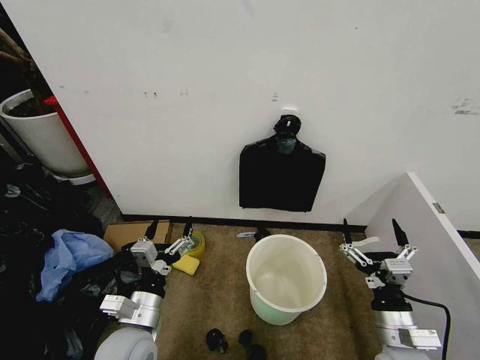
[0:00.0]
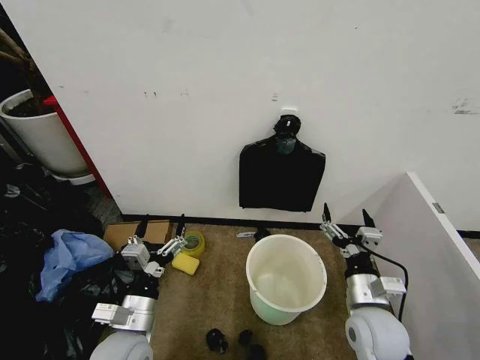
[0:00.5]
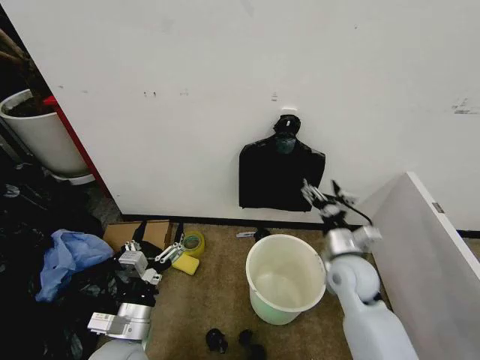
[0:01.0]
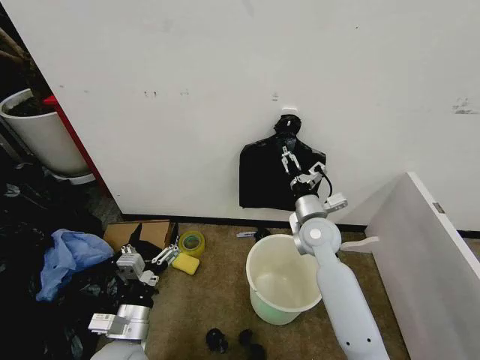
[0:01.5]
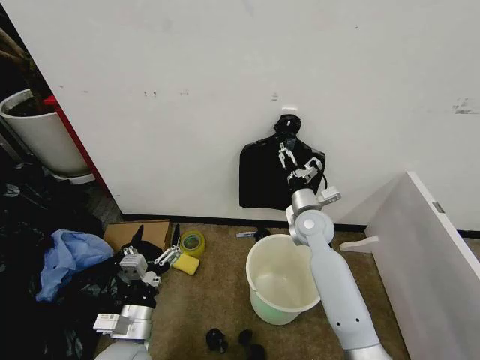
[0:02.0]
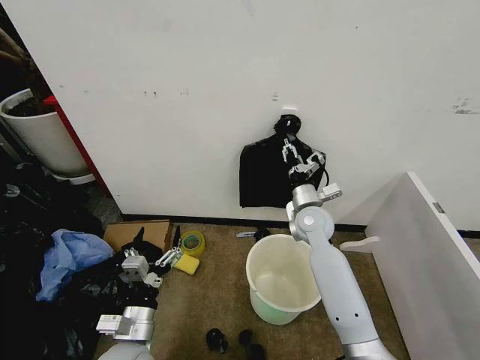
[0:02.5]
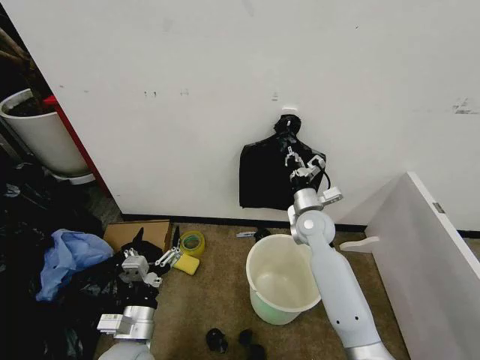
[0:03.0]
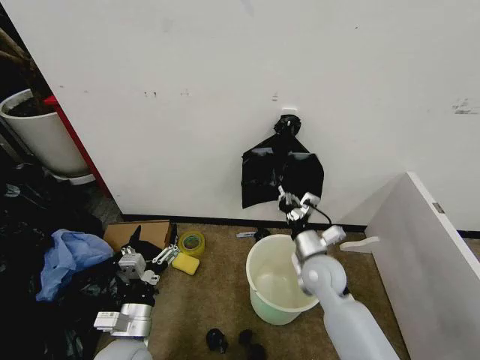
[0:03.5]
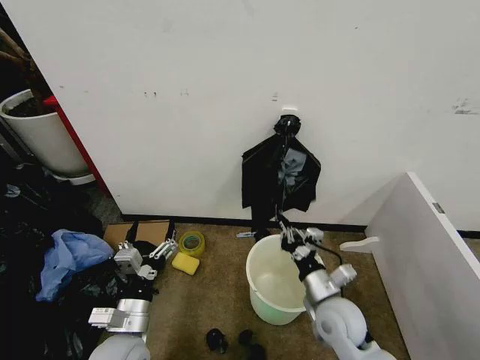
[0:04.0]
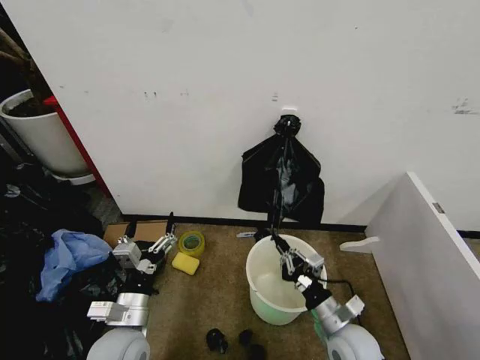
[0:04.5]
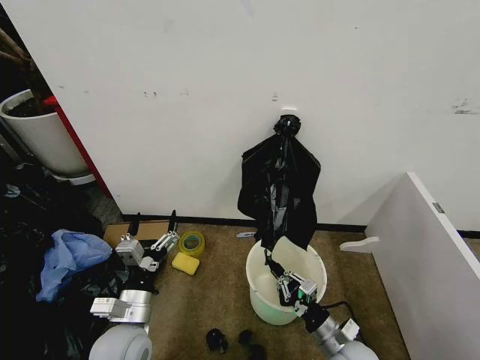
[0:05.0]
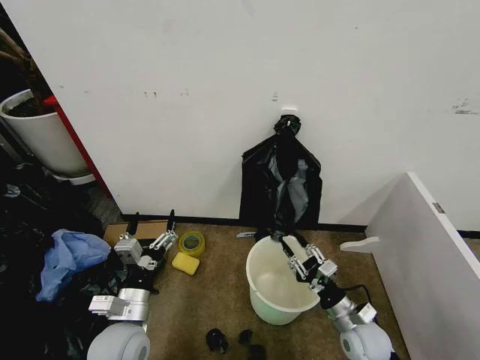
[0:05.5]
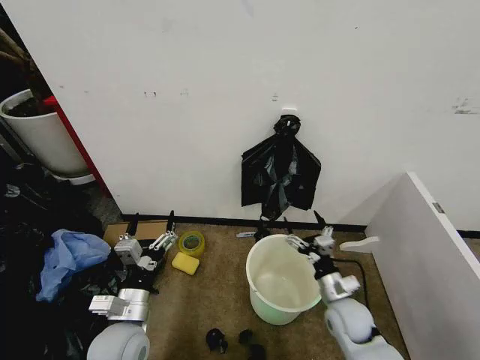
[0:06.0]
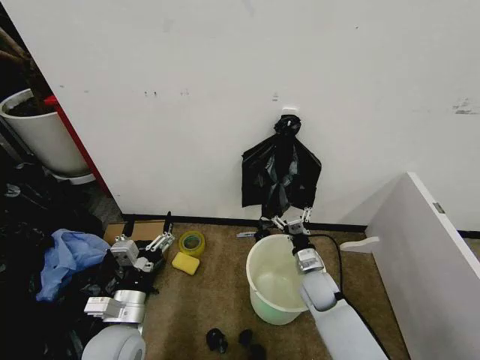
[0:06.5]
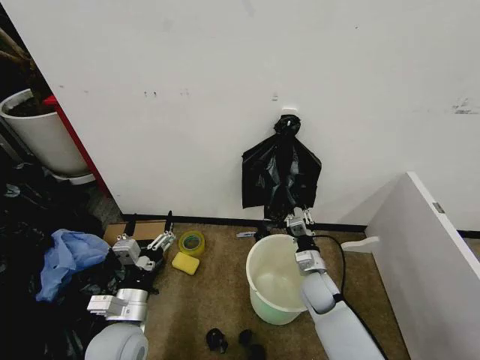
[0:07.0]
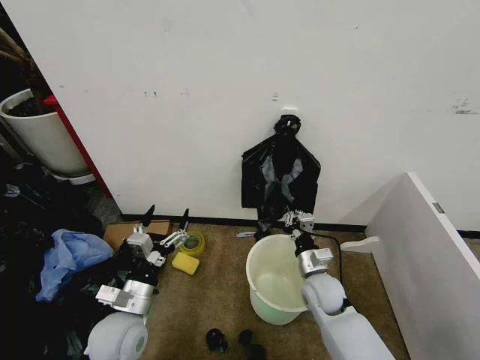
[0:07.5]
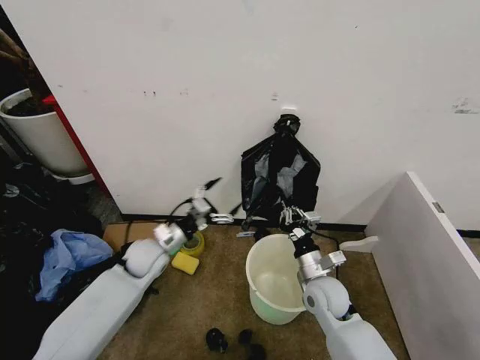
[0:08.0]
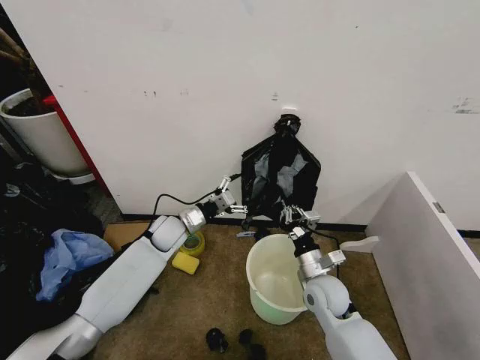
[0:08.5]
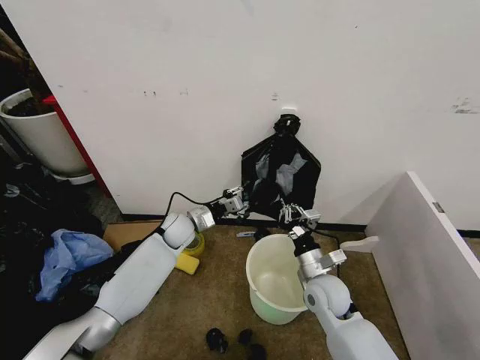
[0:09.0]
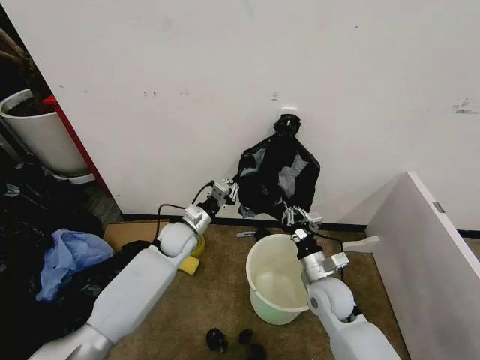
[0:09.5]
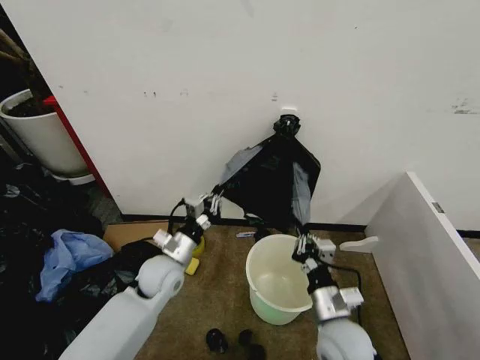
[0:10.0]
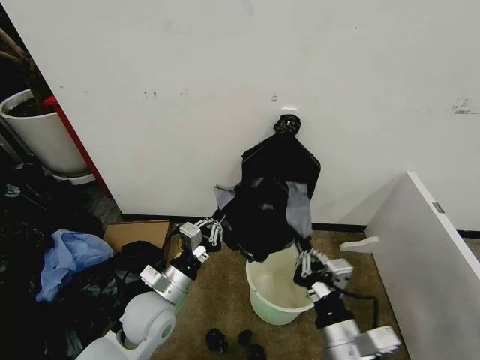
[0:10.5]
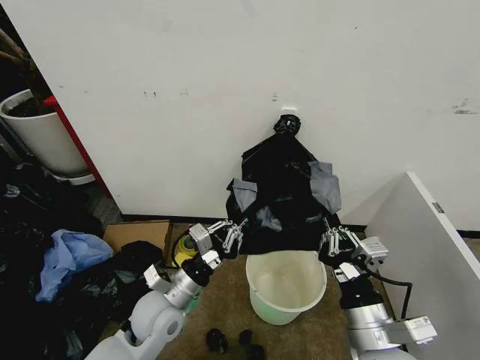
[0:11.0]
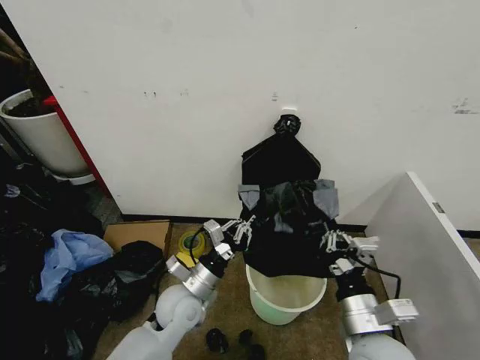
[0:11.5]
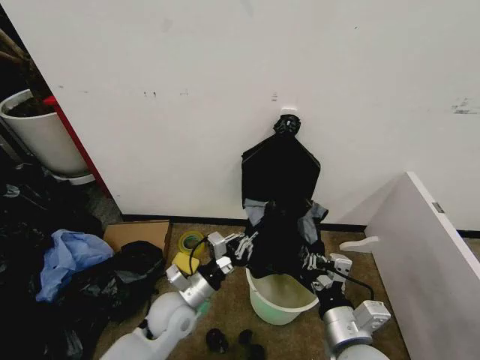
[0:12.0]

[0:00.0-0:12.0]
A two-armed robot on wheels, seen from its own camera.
Task of the whole recording: Place the garbage bag over the trash bin.
0:02.0 to 0:04.0: The right gripper is displaced backward by about 15 cm, and closes up.
0:04.0 to 0:06.0: The right gripper heads downward and to the right, covering roughly 10 cm, and opens up.
0:06.0 to 0:08.0: The right gripper goes approximately 5 cm to the left, and closes its fingers. Meanwhile the left gripper travels forward by some 20 cm.
0:08.0 to 0:10.0: The left gripper shifts some 5 cm to the right, moves about 10 cm forward and comes back, and closes; the right gripper heads backward, covering approximately 10 cm.
0:10.0 to 0:12.0: The right gripper travels upward and backward by approximately 10 cm. Meanwhile the left gripper shifts about 10 cm backward.

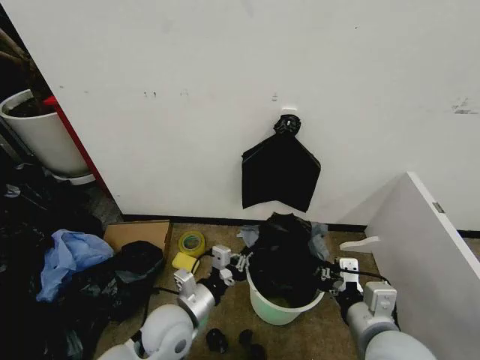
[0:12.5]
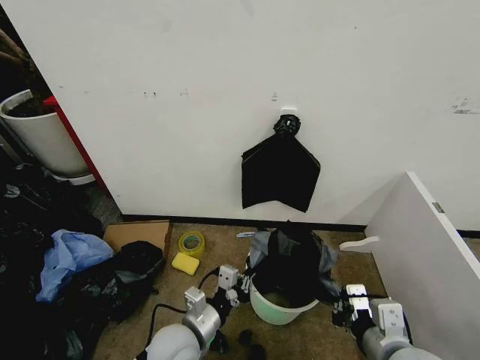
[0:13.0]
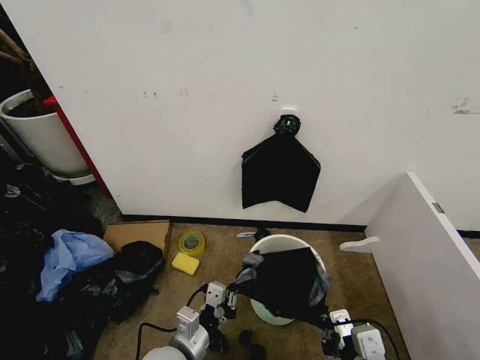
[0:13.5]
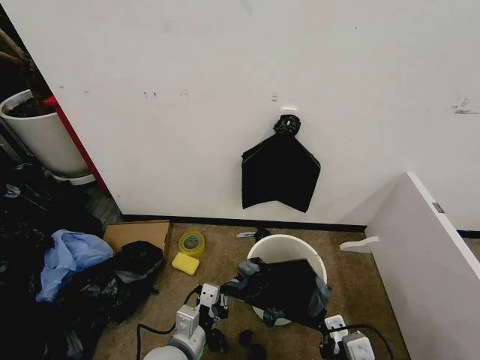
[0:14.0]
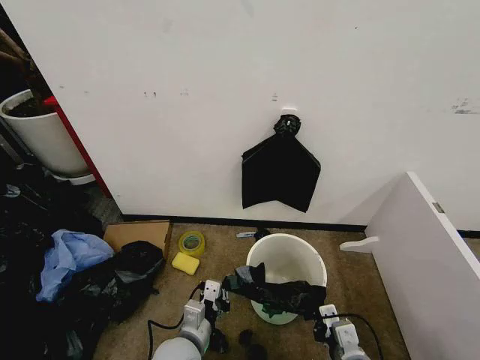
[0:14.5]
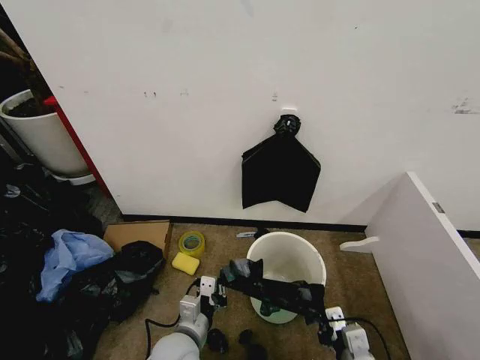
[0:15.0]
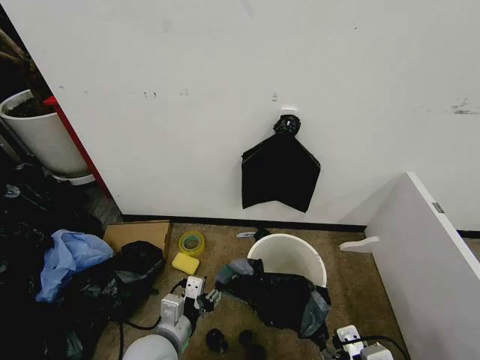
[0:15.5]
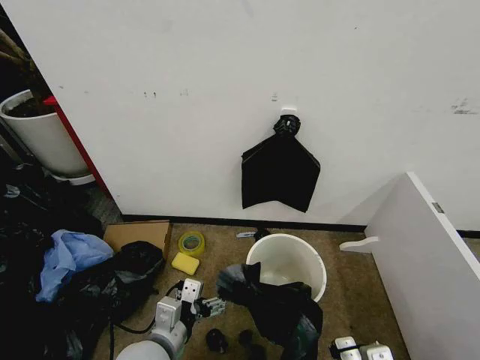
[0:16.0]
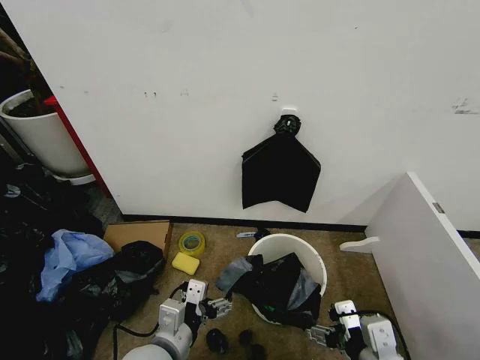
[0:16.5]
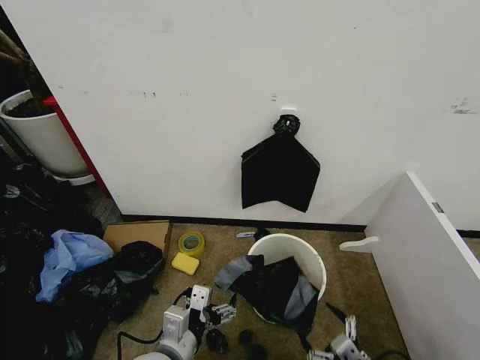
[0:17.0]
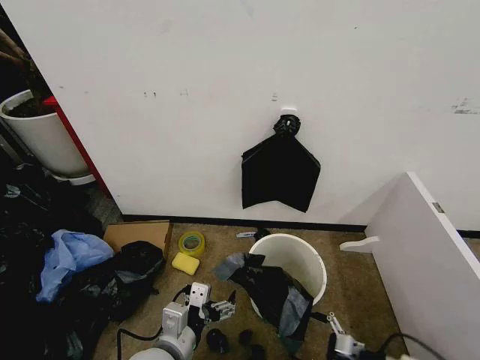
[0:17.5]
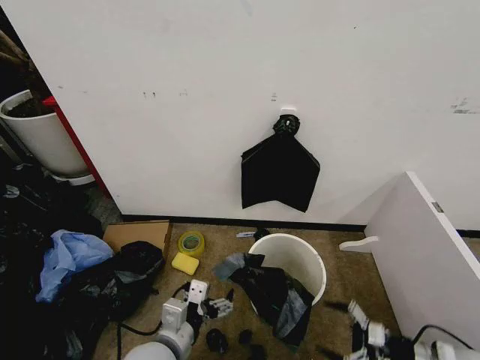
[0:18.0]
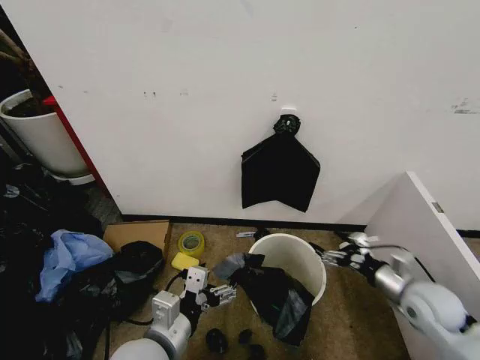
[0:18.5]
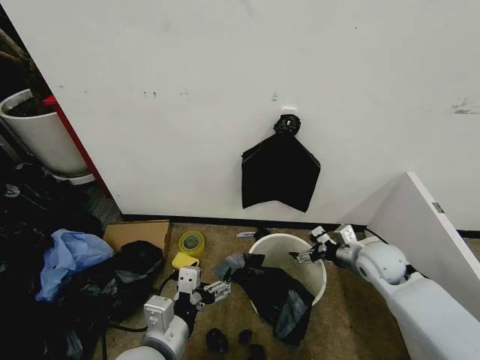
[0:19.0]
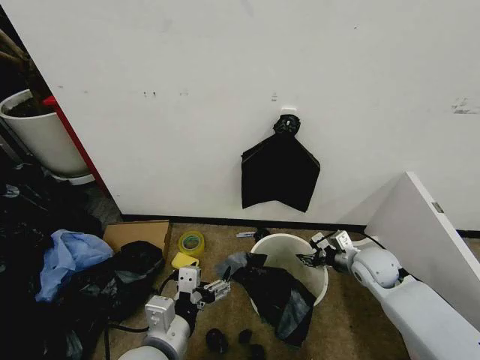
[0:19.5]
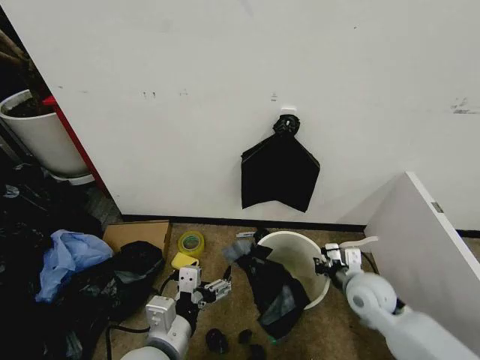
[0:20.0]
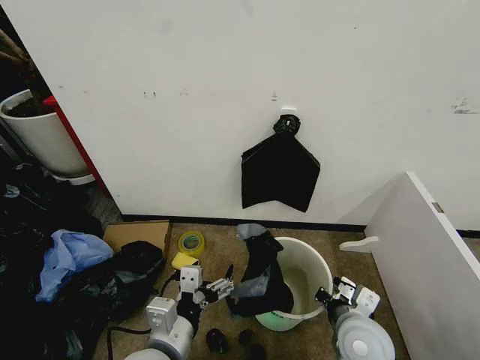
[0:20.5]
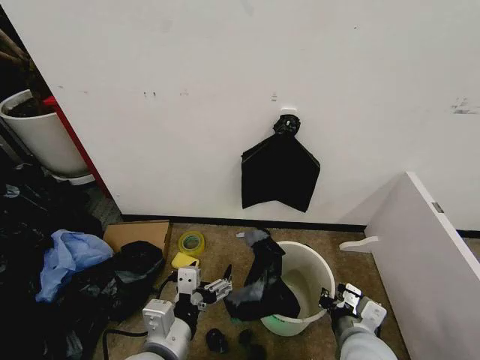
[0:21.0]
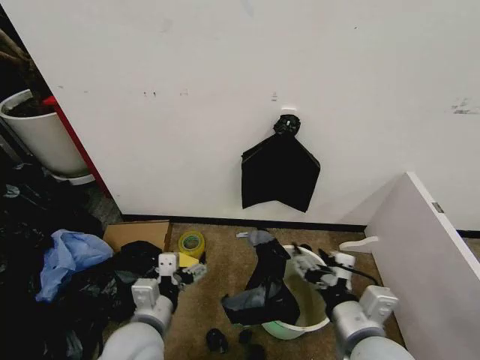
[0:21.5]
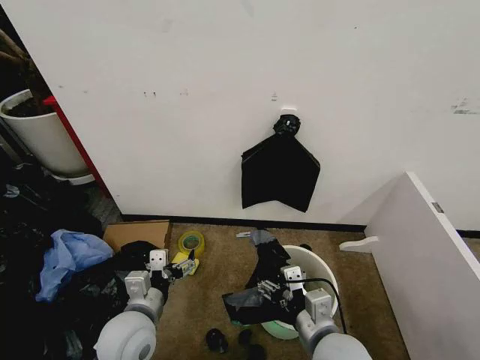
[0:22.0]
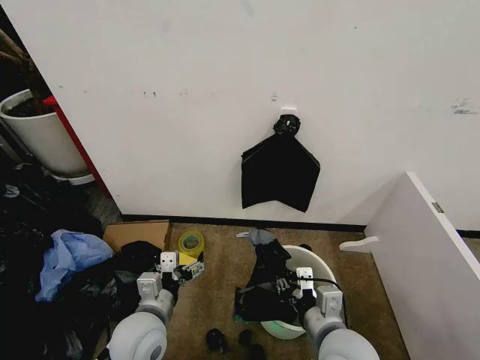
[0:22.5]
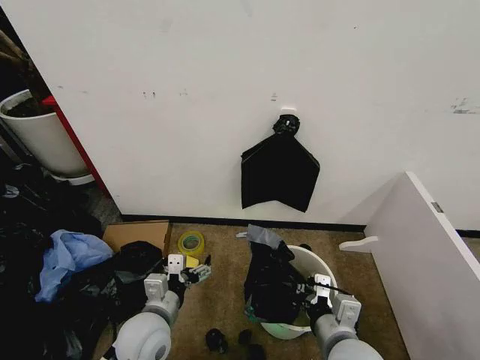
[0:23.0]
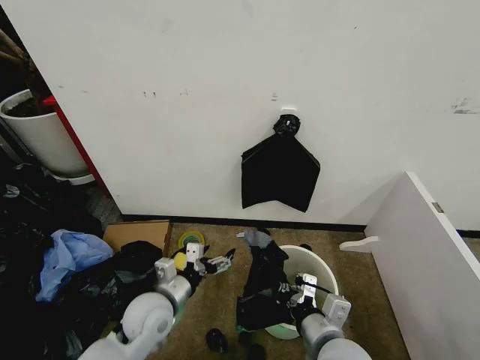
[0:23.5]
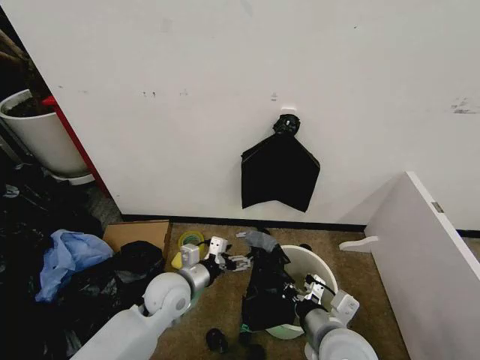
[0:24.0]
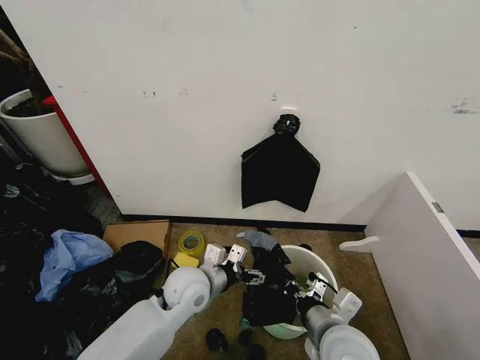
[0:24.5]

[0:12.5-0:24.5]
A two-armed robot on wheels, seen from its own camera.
Task of the whole recording: Place the garbage bag over the trash bin.
0:12.5 to 0:14.5: The left gripper shifts roughly 5 cm downward; the right gripper moves downward, some 10 cm.
0:14.5 to 0:16.5: Both grippers travel together upward, about 10 cm. The left gripper opens up, while the right gripper opens up.
0:16.5 to 0:18.5: The right gripper moves forward, to the right and downward, approximately 25 cm.
0:18.5 to 0:20.5: The right gripper shifts approximately 15 cm to the left and backward, and closes its fingers.
0:20.5 to 0:22.5: The right gripper moves to the left, roughly 5 cm, and opens, then closes once more. The left gripper shifts some 10 cm forward and downward.
0:22.5 to 0:24.5: The left gripper is displaced forward and to the right by about 10 cm.

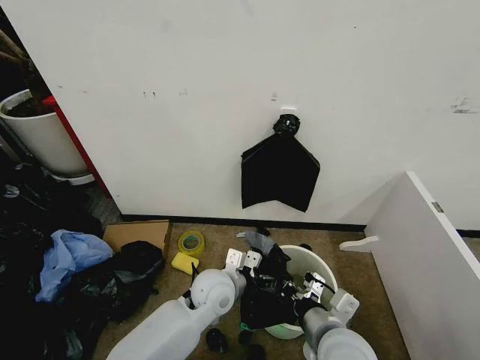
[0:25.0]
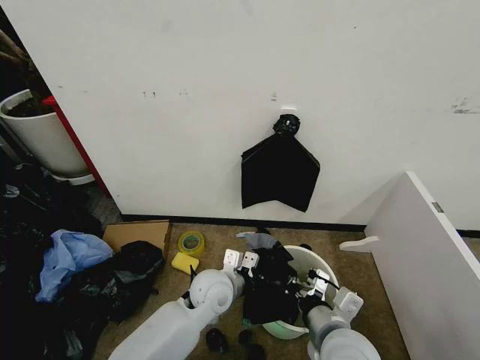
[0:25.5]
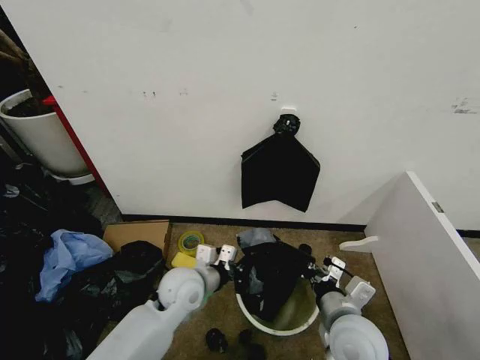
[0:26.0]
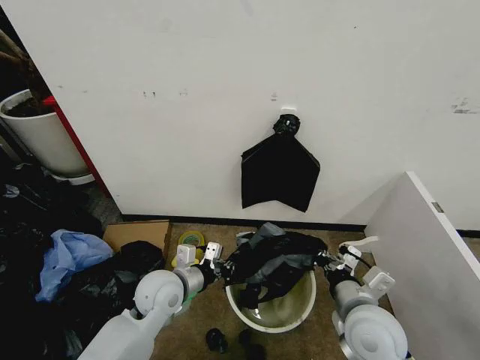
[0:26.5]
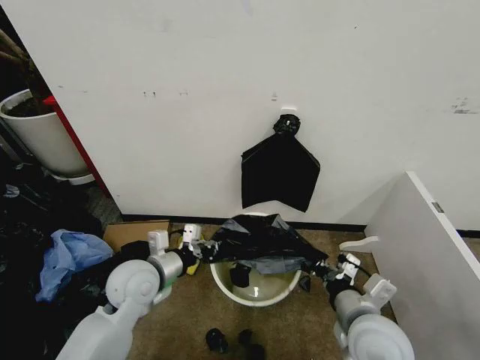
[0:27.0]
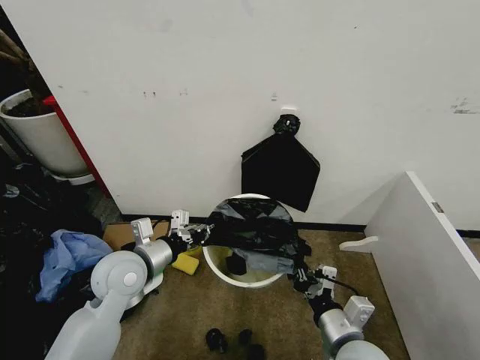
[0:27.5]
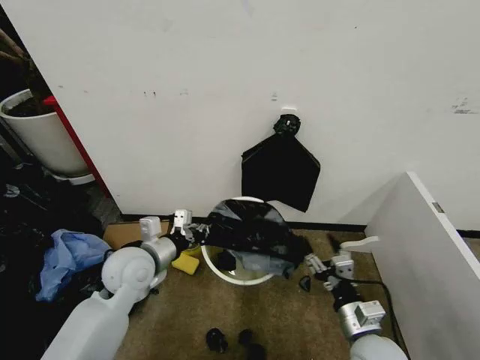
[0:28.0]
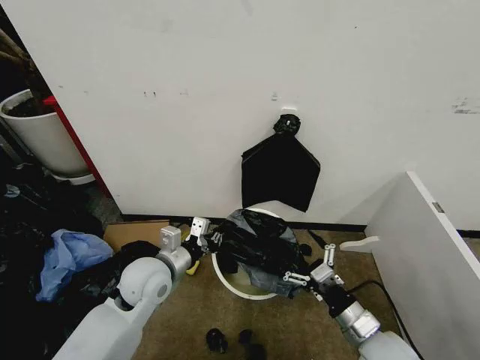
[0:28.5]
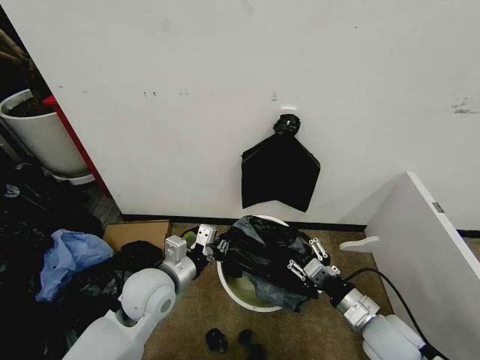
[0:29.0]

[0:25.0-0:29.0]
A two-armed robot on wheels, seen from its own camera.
Task of the whole recording: Place the garbage bag over the trash bin.
0:25.0 to 0:27.0: The right gripper travels to the right by some 5 cm. The left gripper travels to the left by about 15 cm, and closes up.
0:27.0 to 0:29.0: The right gripper heads downward and to the right, covering some 10 cm, and opens.
